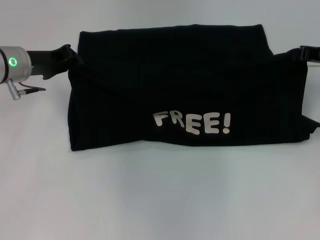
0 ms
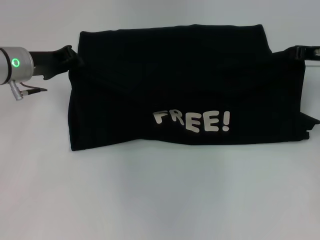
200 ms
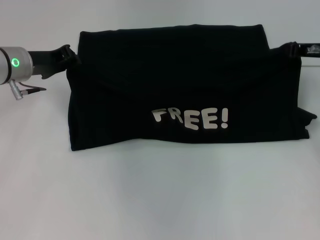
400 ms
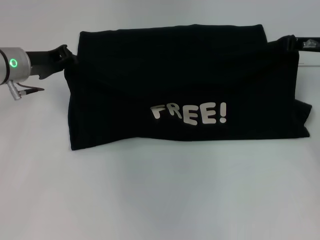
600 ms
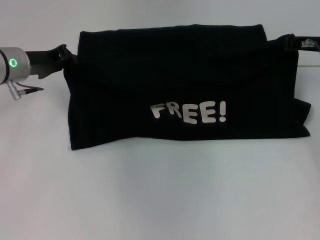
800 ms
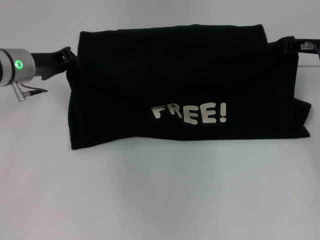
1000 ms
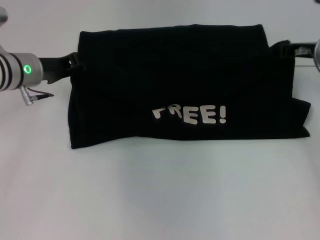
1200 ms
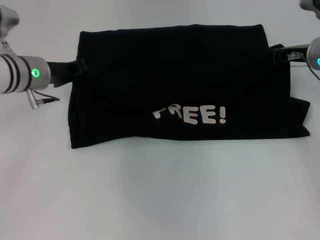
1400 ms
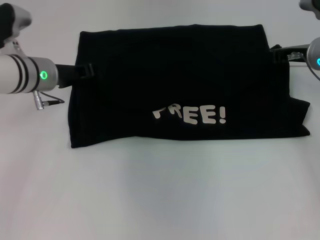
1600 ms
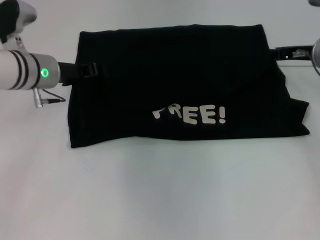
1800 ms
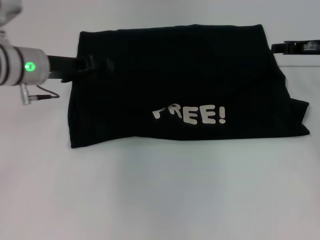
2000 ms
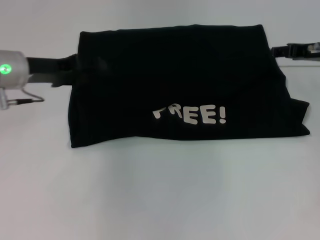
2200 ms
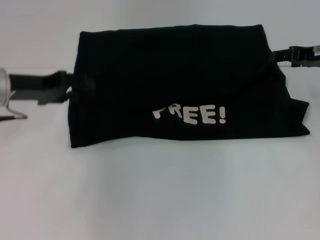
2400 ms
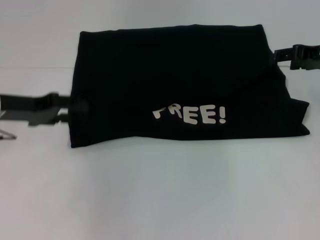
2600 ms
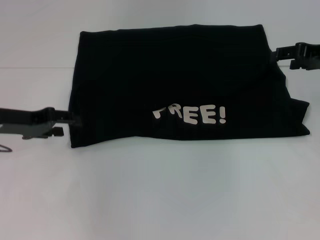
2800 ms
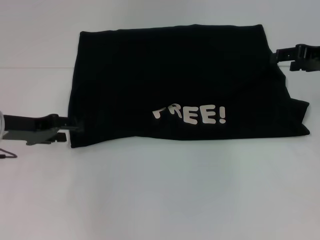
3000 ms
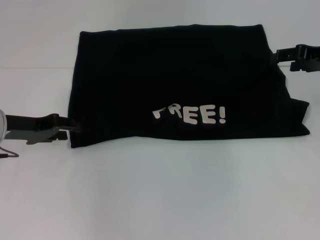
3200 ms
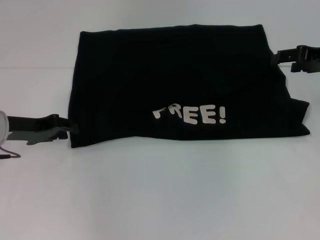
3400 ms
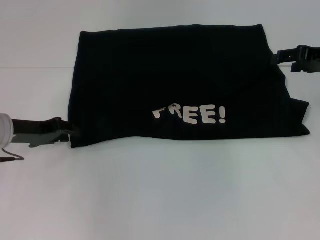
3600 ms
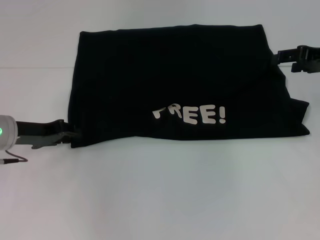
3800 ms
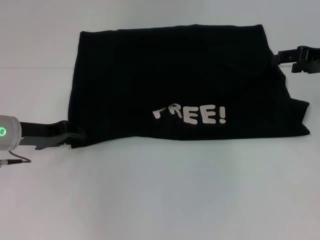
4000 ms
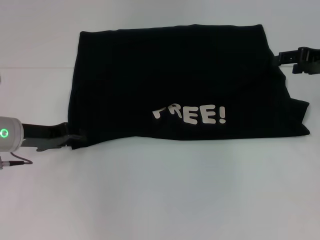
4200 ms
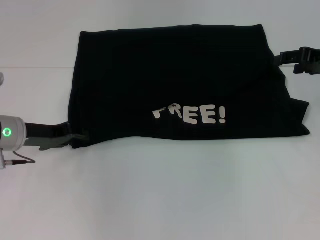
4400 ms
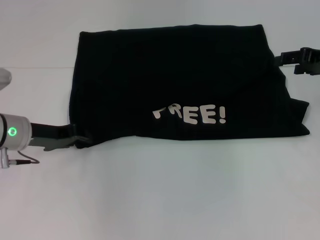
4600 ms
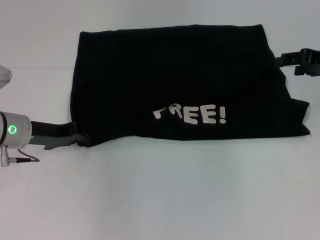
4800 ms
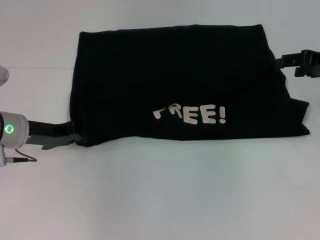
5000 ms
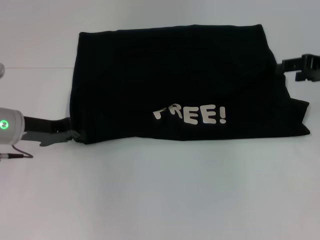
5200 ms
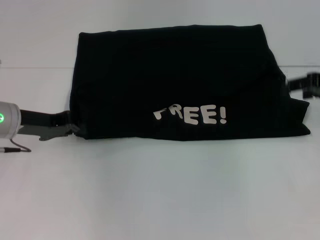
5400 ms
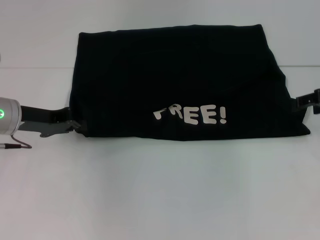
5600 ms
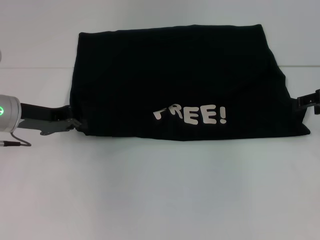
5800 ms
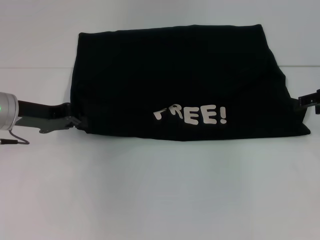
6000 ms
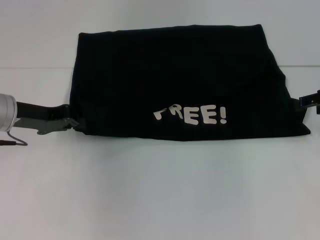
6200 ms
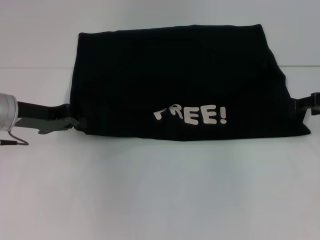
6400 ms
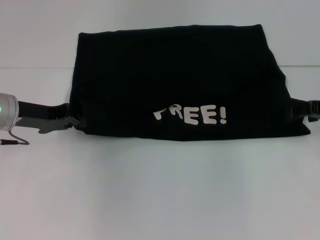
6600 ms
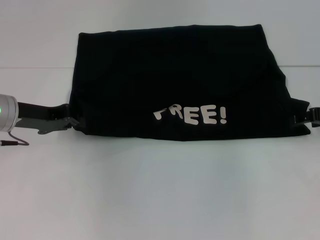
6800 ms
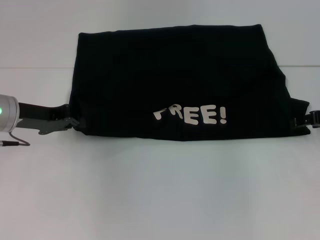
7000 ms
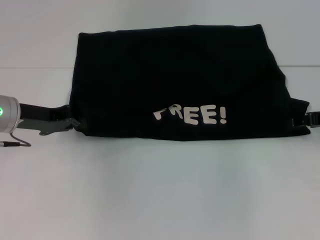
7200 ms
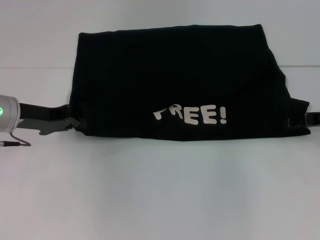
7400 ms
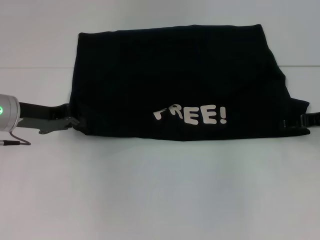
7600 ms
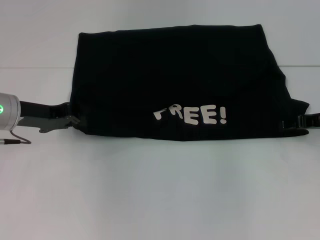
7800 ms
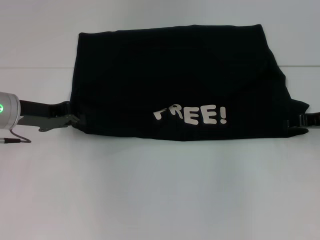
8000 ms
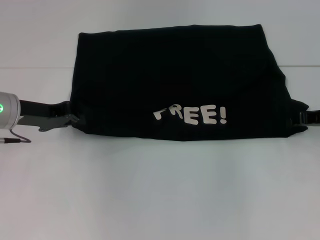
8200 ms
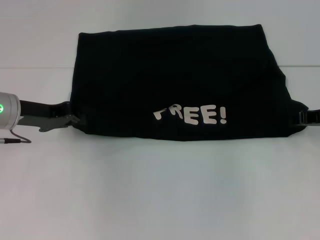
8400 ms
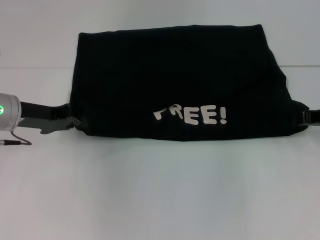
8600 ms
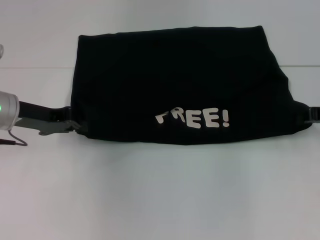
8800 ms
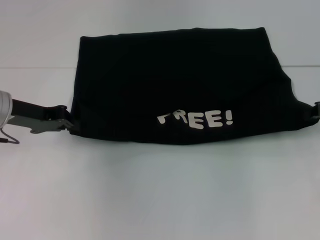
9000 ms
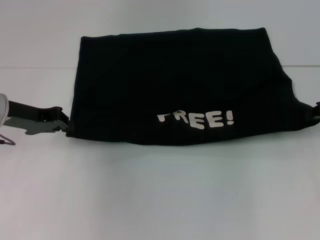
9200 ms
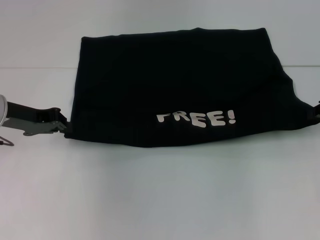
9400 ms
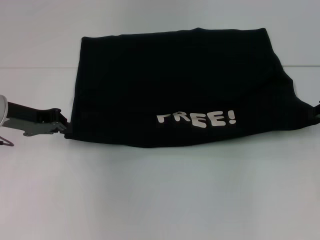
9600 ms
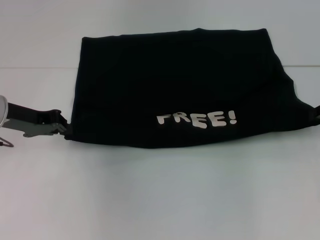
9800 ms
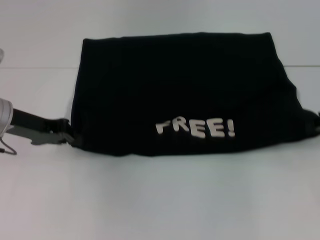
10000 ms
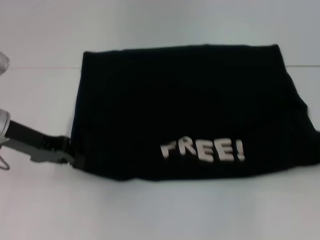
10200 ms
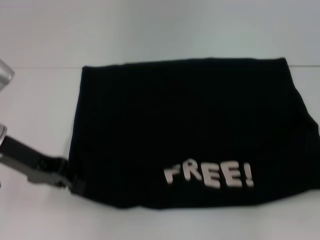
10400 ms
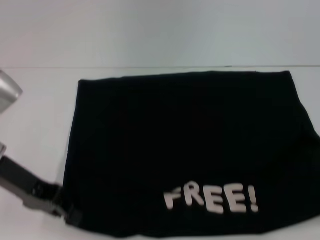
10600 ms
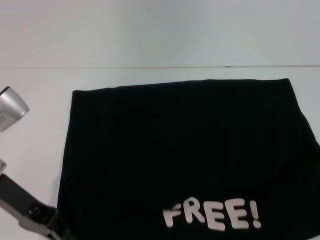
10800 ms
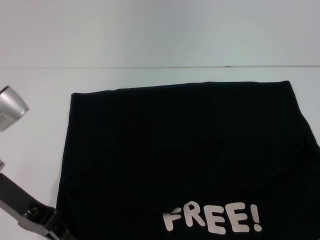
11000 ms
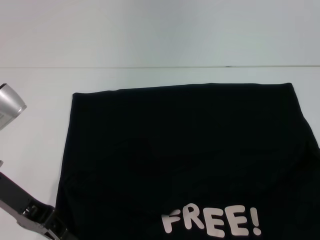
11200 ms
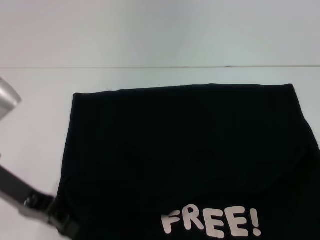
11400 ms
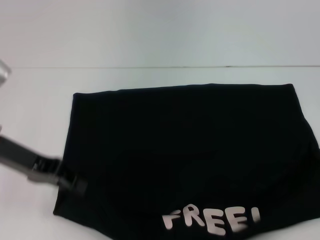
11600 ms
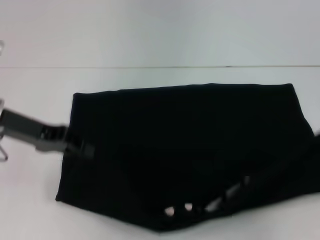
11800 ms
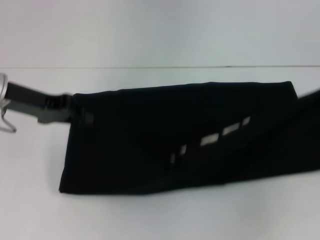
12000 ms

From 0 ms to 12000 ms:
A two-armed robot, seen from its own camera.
Step, from 2000 ms to 10600 ms: Pull the clothes with your left hand.
Step, from 2000 ms to 10600 ms: Pull the clothes with your right hand.
From 0 ms to 1600 ms: The right gripper travels to the left by about 5 cm.
From 1600 ms to 3000 ms: The left gripper shifts roughly 10 cm backward and to the left, and opens up; the right gripper shifts approximately 5 cm to the right, and opens up.
From 3000 ms to 4400 ms: The left gripper closes its fingers.
From 4400 ms to 6000 ms: The left gripper closes.
From 6000 ms to 7600 ms: The right gripper is displaced downward by approximately 5 cm.
From 7600 ms to 9000 ms: The right gripper closes its fingers.
From 9000 ms to 10400 ms: The left gripper changes place by roughly 5 cm. The right gripper goes some 5 cm backward.
From 10400 ms to 12000 ms: The left gripper changes place by approximately 5 cm.

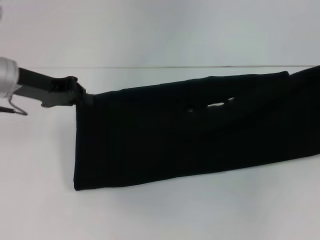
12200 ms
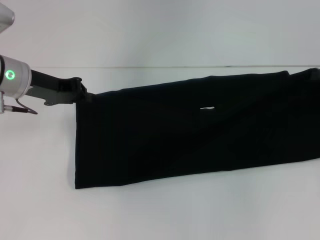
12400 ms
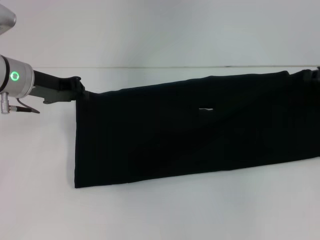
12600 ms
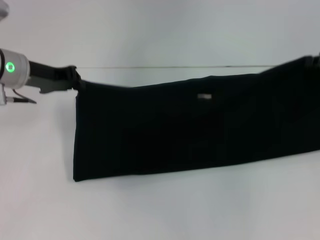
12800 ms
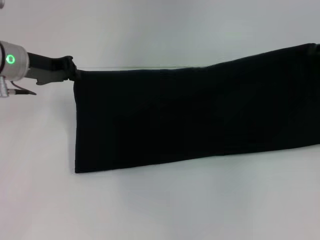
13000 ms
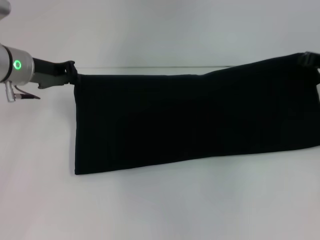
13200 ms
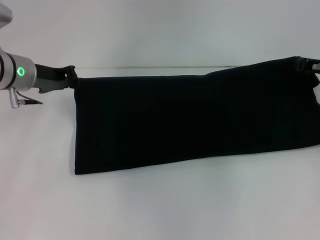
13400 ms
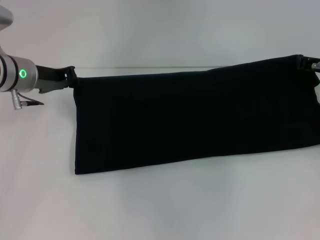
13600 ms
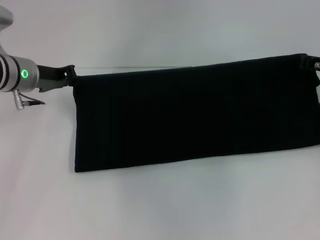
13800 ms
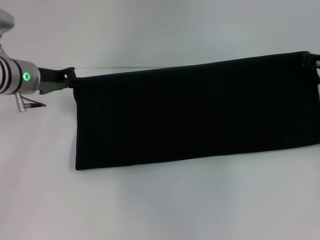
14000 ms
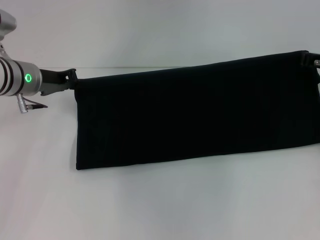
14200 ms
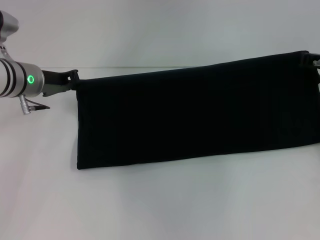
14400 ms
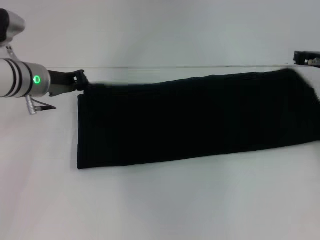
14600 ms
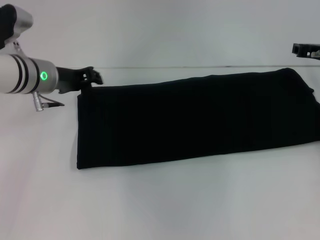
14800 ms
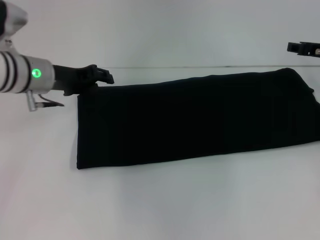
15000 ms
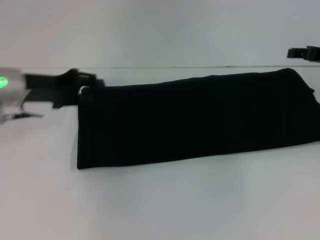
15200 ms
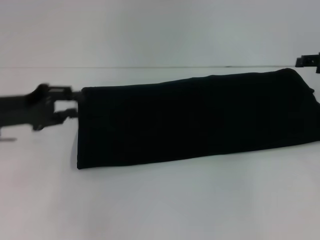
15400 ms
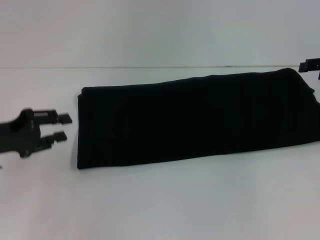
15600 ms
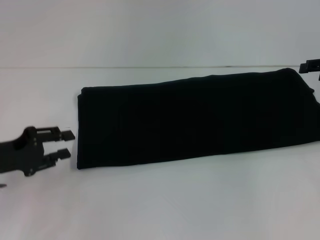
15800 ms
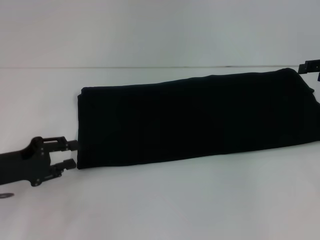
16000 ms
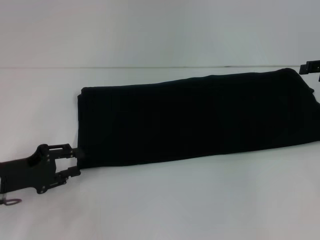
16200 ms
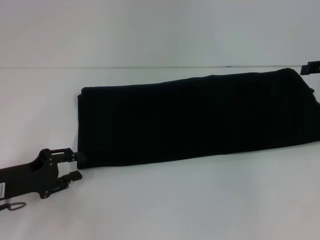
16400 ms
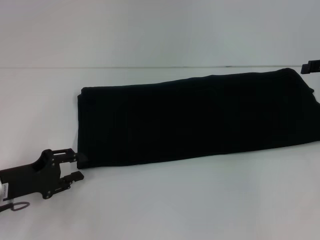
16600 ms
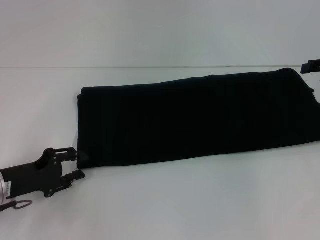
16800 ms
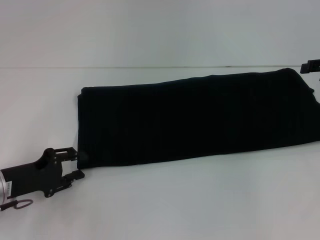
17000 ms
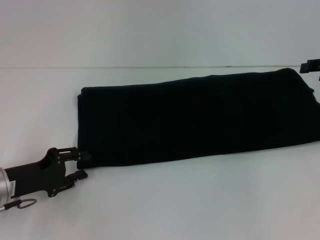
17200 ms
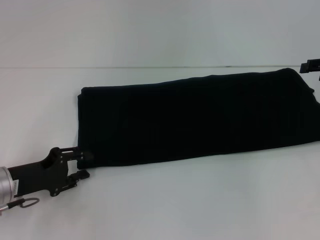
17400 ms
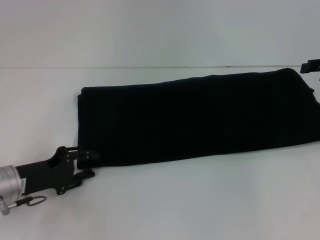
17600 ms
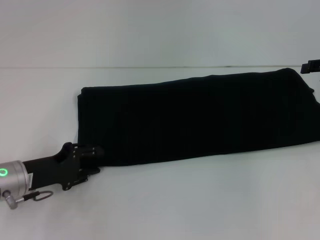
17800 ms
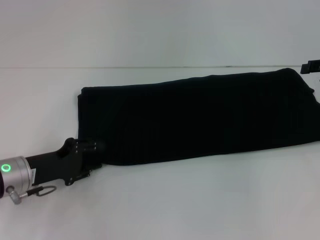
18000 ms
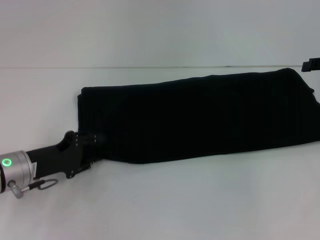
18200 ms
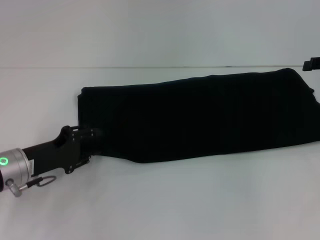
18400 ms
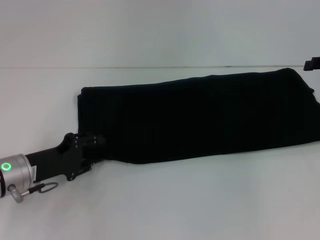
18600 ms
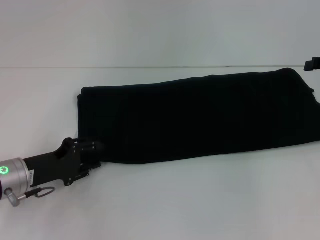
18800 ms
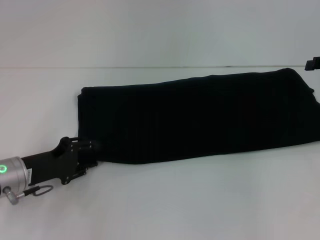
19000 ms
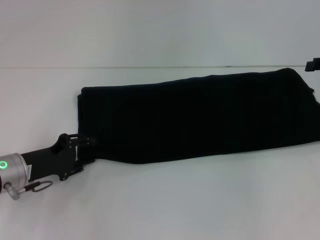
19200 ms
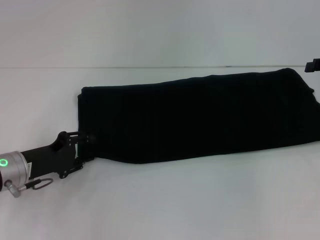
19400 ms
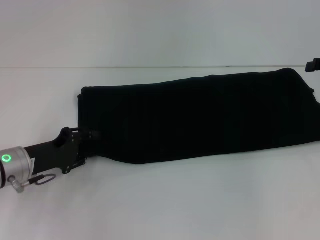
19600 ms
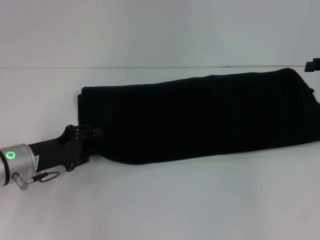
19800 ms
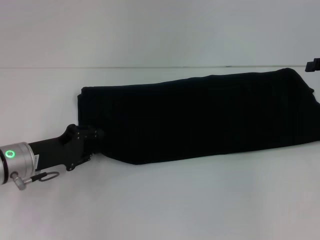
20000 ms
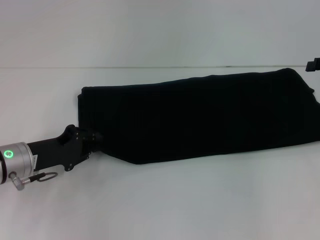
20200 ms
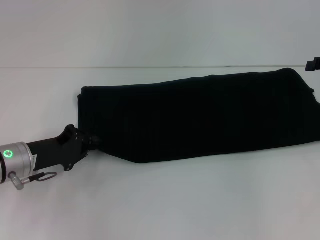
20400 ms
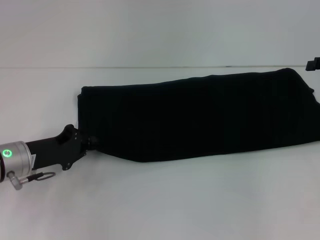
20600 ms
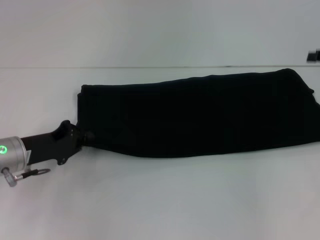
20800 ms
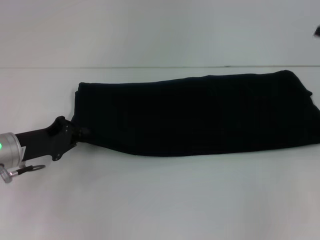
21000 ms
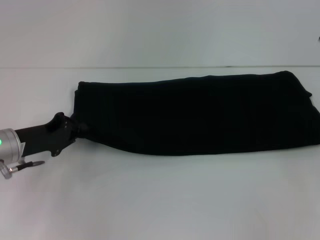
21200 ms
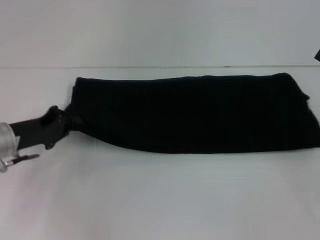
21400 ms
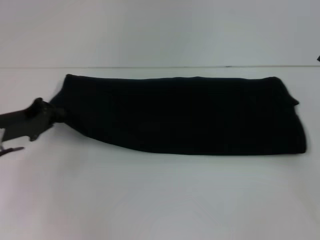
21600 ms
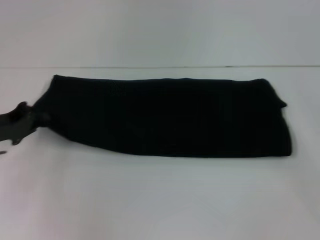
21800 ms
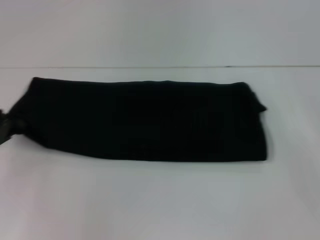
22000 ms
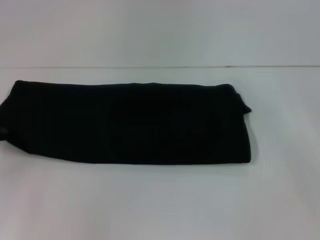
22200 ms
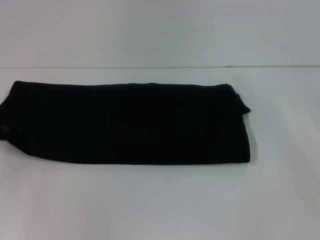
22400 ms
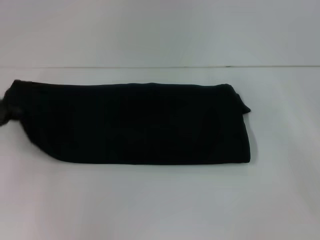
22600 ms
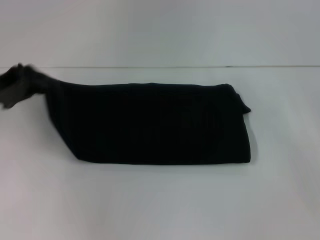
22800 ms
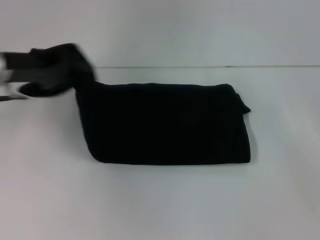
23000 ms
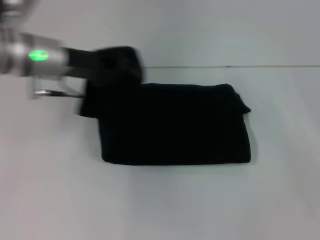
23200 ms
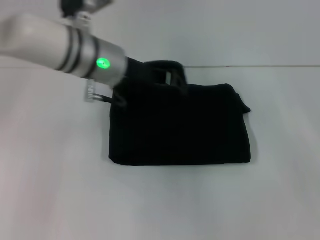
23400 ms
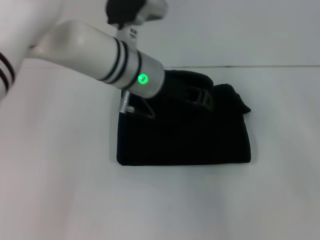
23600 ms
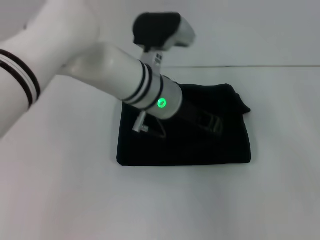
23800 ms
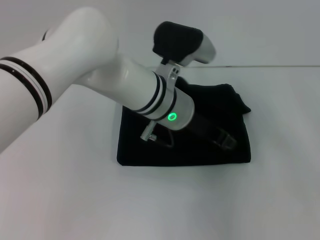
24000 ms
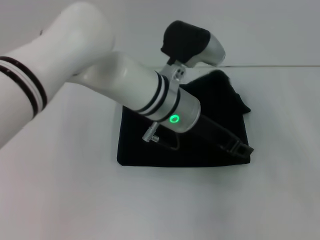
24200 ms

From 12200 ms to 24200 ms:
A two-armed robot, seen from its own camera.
Step, from 12200 ms to 14800 ms: Fold the clothes with your right hand.
From 12200 ms to 13800 ms: The left gripper changes place by approximately 5 cm, while the right gripper moves to the left, forward and downward, approximately 10 cm.
From 13800 ms to 15200 ms: The left gripper changes place by roughly 5 cm, and opens its fingers. Meanwhile the right gripper opens up.
From 15200 ms to 16600 ms: The left gripper goes roughly 15 cm backward and downward.
From 16600 ms to 18200 ms: The left gripper shifts by approximately 5 cm.
From 18200 ms to 19800 ms: Both grippers stay put.
From 19800 ms to 21200 ms: The right gripper moves backward, approximately 5 cm; the left gripper closes up.
From 21200 ms to 22600 ms: The left gripper travels to the left and upward by about 10 cm.
From 22600 ms to 24200 ms: The left gripper heads to the right, covering approximately 35 cm.
